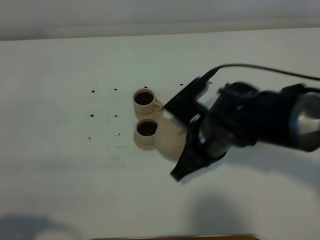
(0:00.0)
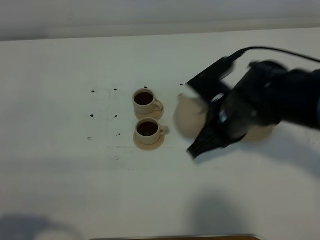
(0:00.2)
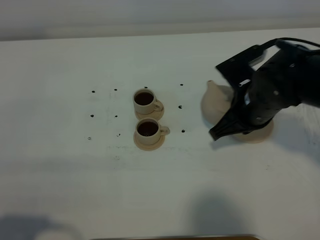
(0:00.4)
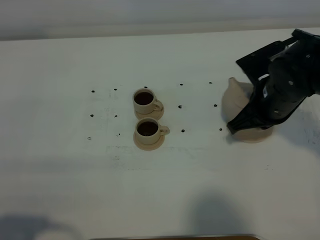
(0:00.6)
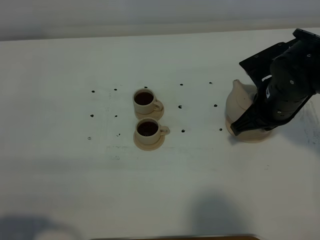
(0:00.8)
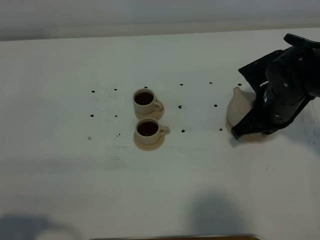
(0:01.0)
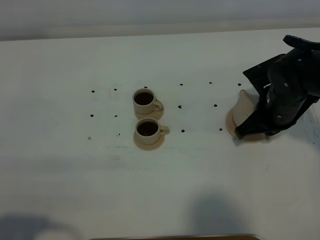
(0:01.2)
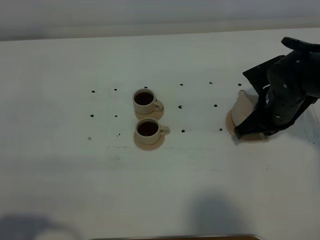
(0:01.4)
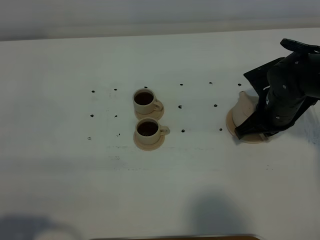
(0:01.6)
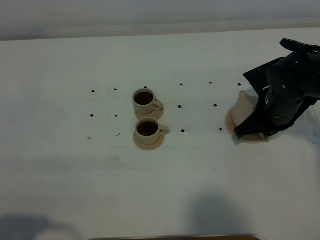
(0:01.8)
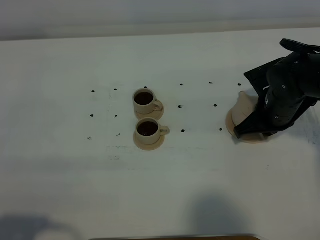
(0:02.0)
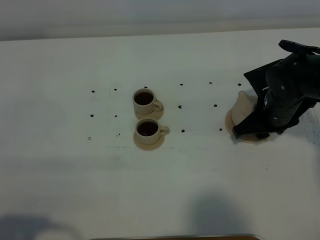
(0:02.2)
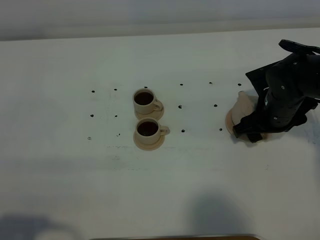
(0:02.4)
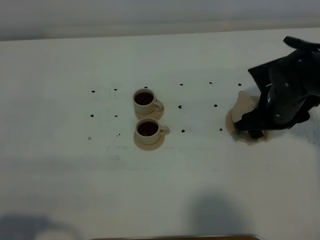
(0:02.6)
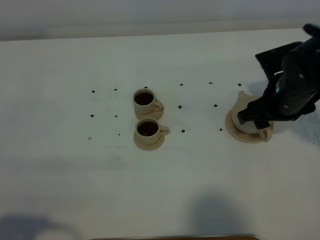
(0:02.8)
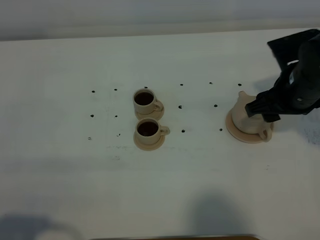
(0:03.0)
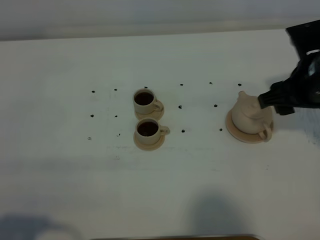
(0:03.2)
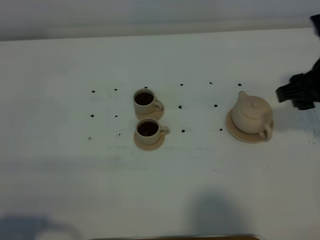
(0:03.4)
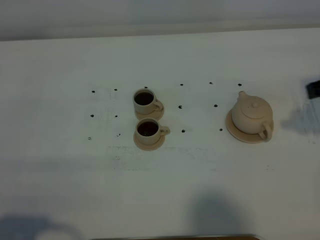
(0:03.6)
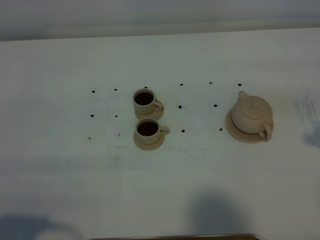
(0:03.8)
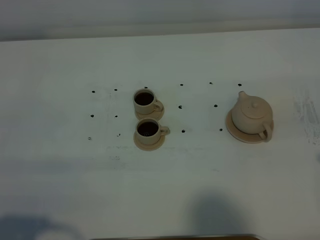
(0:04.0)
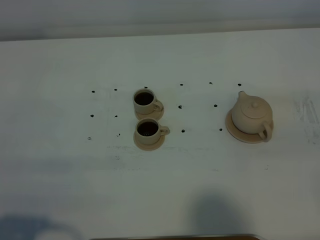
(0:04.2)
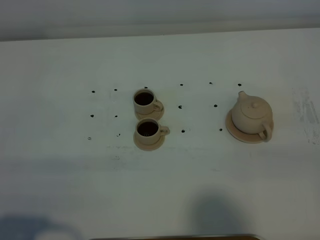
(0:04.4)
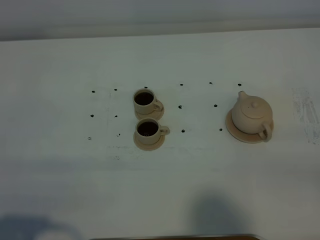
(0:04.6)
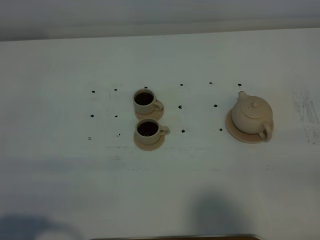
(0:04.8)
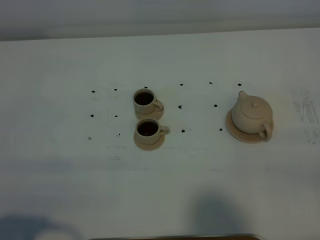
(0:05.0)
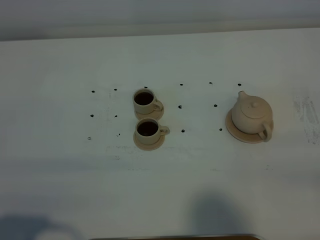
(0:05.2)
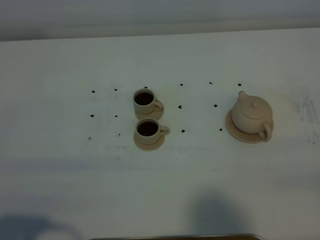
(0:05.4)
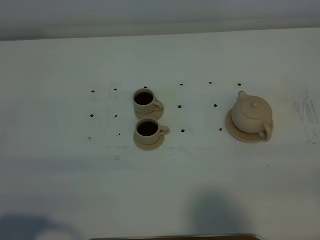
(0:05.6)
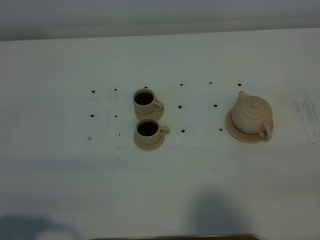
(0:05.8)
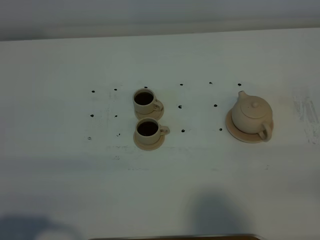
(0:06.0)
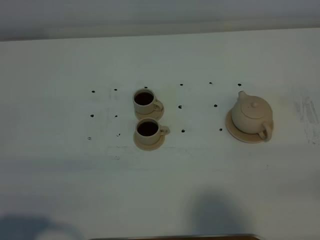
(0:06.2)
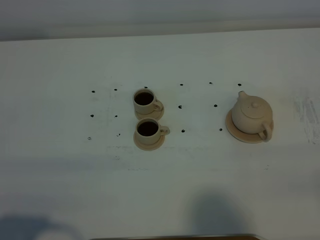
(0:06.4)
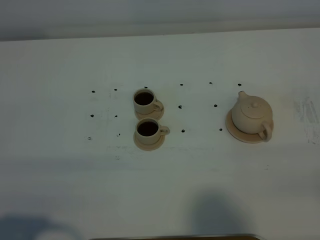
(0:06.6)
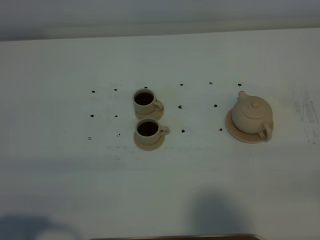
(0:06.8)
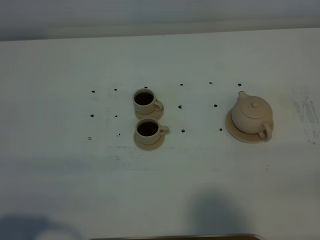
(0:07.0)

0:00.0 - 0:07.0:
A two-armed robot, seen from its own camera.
Task of the whole recording: grasp the brown teapot and pour the tea into the two brown teacups one by one, put the brown teapot back in its original place.
0:00.0 - 0:01.4: The right gripper travels to the right and forward by roughly 15 cm.
0:01.4 - 0:02.8: The right gripper opens up.
0:02.8 - 0:04.2: The right gripper goes some 30 cm backward, upward and to the right.
0:05.6 - 0:07.0: Neither gripper changes place.

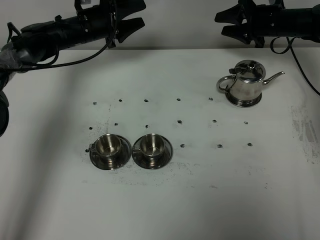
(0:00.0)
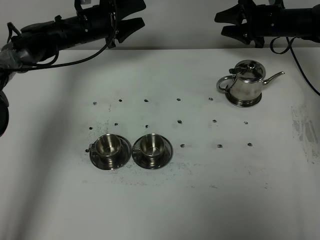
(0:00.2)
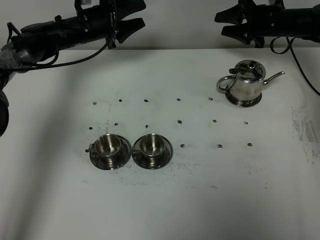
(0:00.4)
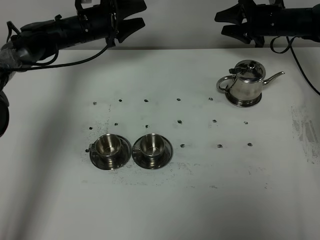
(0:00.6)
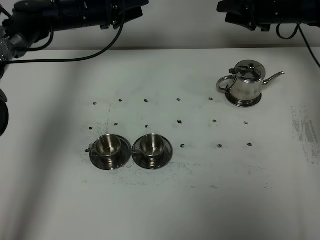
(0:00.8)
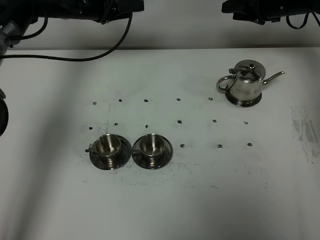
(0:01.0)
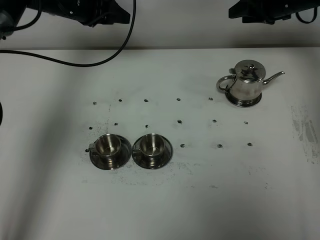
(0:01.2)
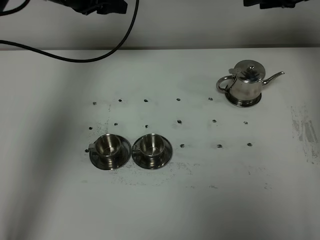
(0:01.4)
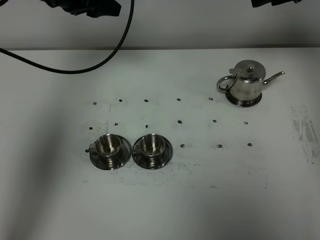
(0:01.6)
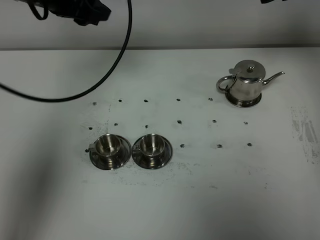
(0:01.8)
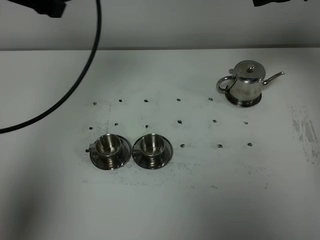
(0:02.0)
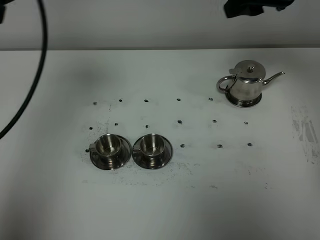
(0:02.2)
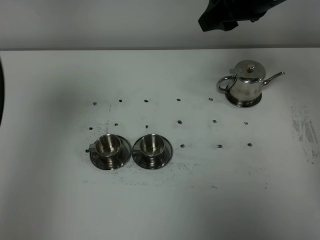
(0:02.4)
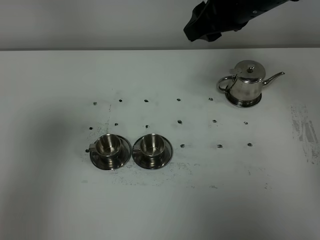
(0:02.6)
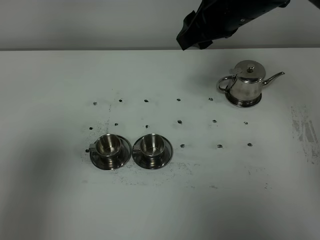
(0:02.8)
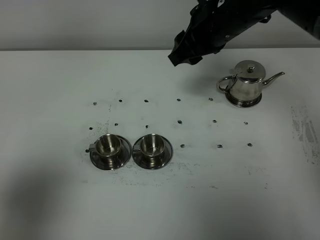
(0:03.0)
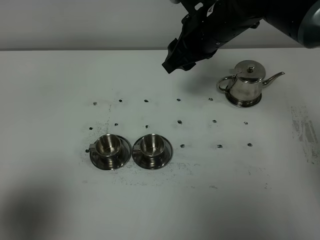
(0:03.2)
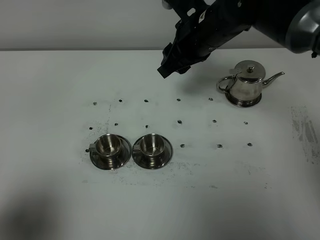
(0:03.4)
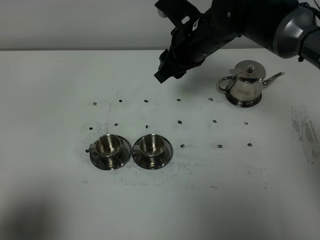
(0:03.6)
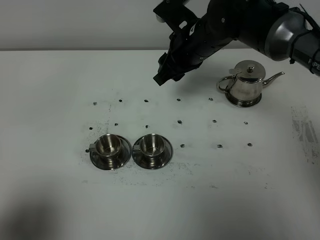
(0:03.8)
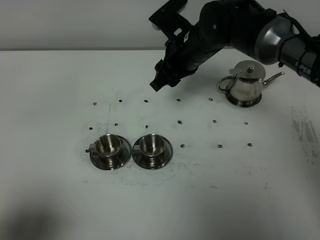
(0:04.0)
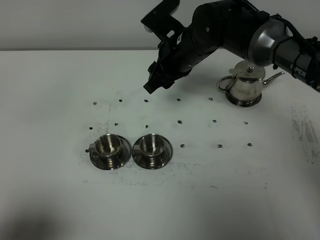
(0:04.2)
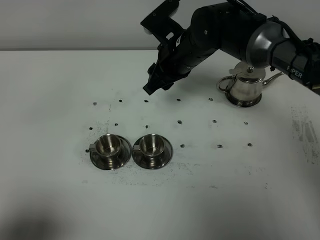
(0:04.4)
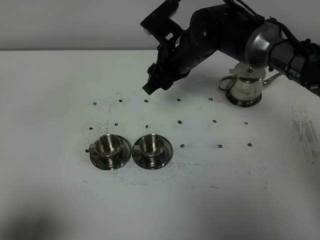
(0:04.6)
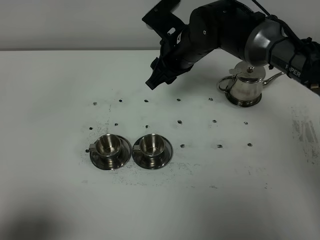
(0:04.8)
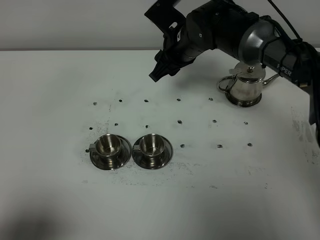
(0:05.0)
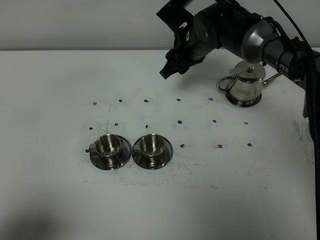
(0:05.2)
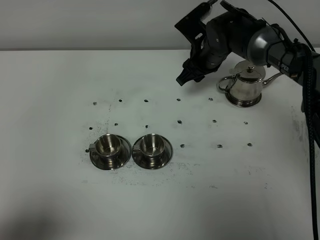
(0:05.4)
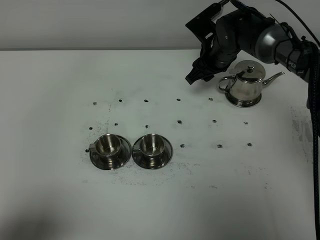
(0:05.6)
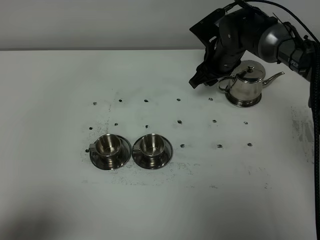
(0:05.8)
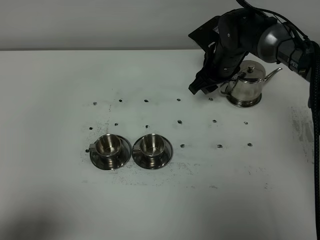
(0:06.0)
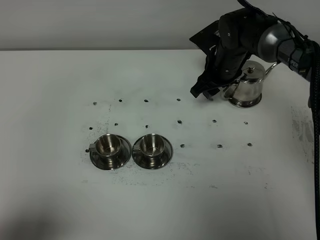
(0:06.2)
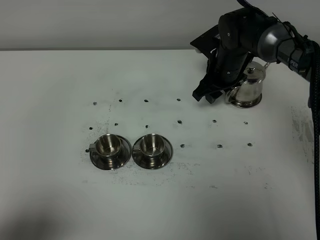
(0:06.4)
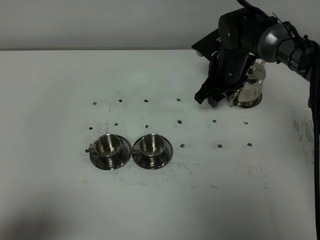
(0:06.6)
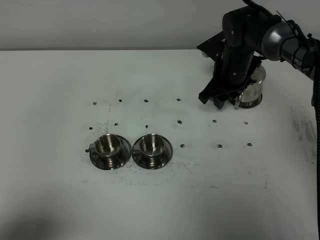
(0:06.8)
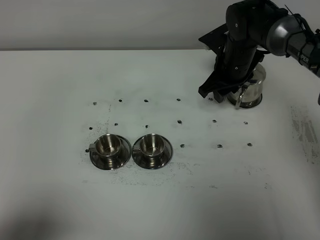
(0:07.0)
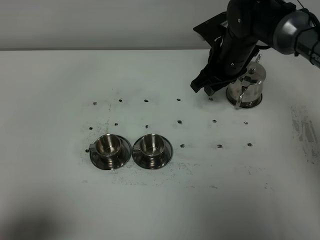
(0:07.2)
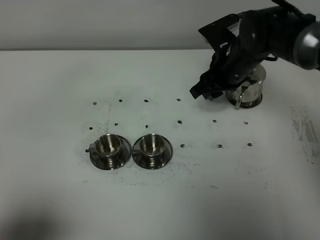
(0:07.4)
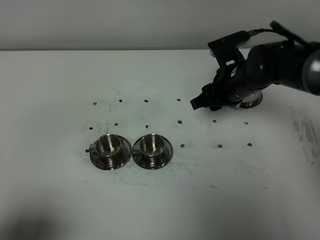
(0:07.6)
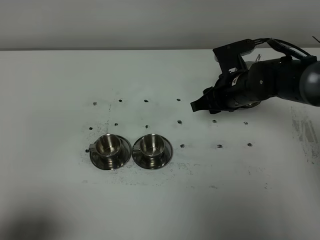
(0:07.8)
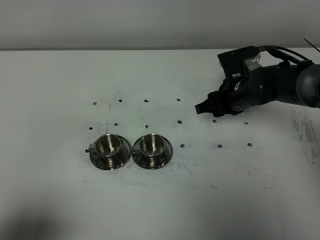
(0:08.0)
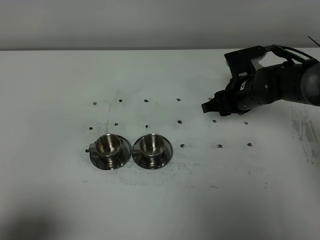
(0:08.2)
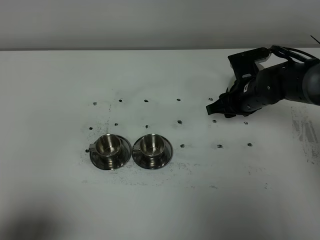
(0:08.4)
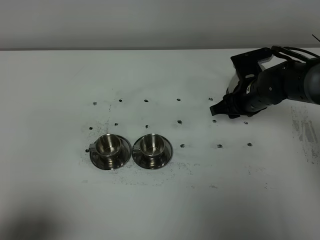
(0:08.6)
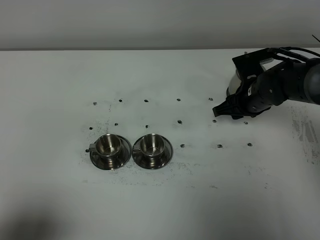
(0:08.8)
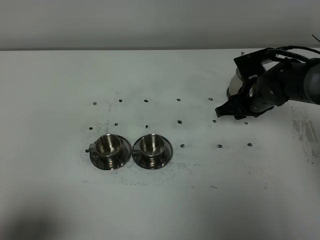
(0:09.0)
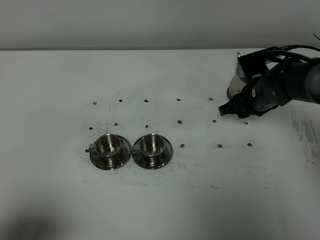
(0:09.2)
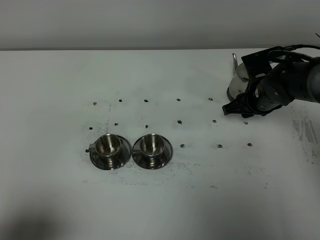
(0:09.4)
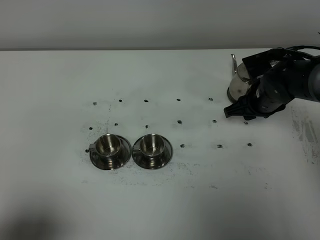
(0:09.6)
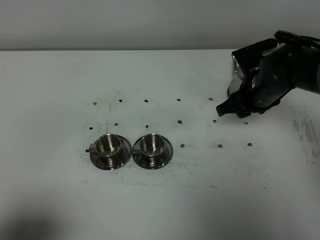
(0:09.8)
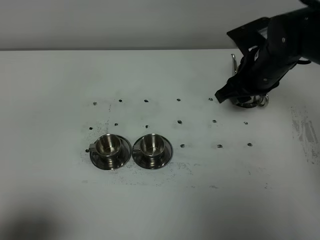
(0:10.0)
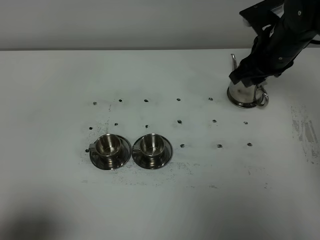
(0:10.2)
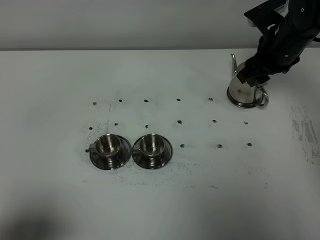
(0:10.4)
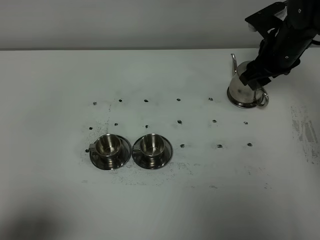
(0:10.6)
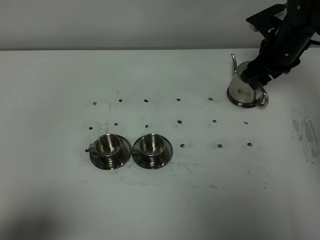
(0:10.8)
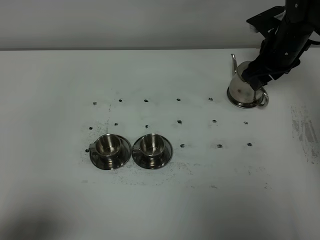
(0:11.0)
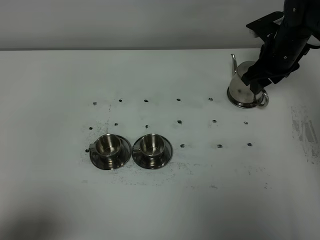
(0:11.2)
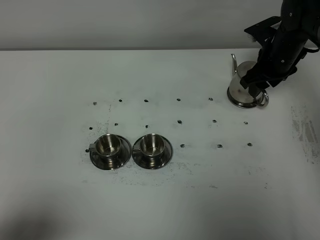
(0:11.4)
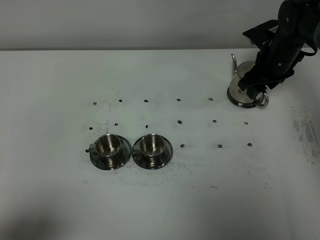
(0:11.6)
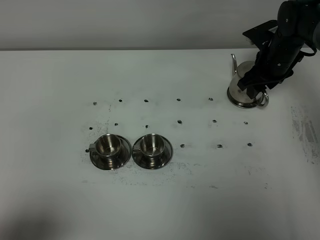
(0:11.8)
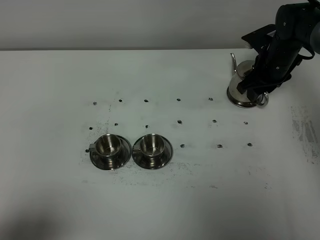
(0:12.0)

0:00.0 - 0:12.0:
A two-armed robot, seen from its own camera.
Task of the whole recording: grasp the stainless steel teapot and pour the tea into the two stainless steel teacups one by one, put the stainless steel teapot back in its original place.
0:00.0 - 0:01.6: The two grippers go approximately 20 cm upward and backward.
0:01.6 - 0:03.0: The left gripper moves backward, approximately 40 cm, while the right gripper moves to the left and backward, roughly 20 cm.
0:03.0 - 0:04.4: The left gripper goes roughly 10 cm downward and backward; the right gripper shifts roughly 10 cm downward.
0:04.4 - 0:06.0: The right gripper goes approximately 10 cm to the right, downward and forward.
0:06.0 - 0:07.6: The right gripper goes approximately 10 cm backward.
0:07.6 - 0:09.0: The right gripper shifts by some 5 cm.
0:09.0 - 0:10.4: The right gripper shifts approximately 10 cm upward.
0:10.4 - 0:12.0: The right gripper moves downward and forward, approximately 10 cm.

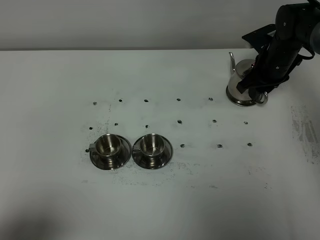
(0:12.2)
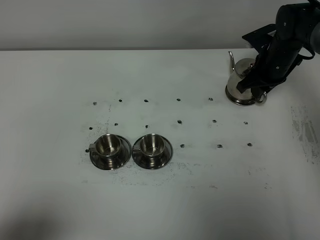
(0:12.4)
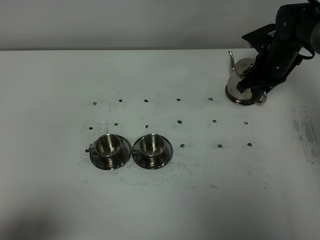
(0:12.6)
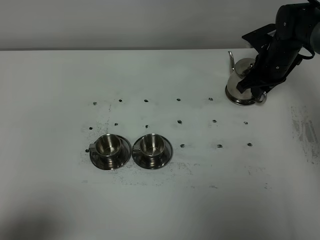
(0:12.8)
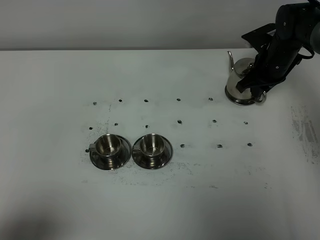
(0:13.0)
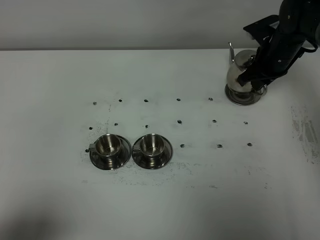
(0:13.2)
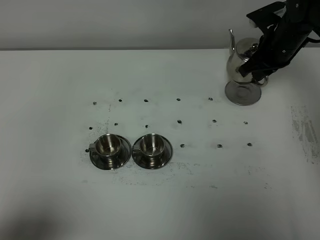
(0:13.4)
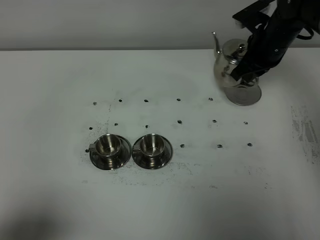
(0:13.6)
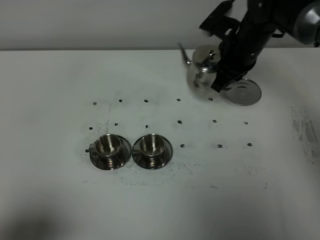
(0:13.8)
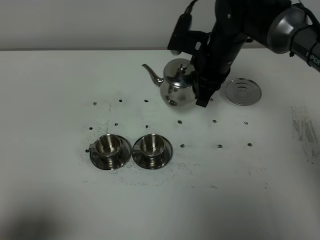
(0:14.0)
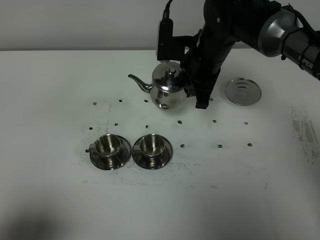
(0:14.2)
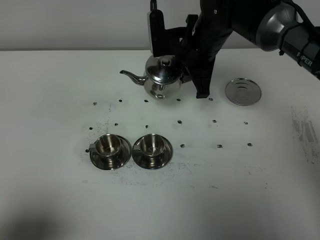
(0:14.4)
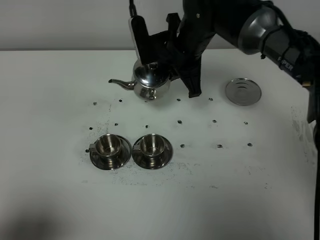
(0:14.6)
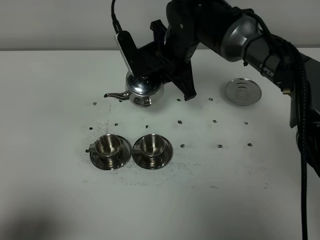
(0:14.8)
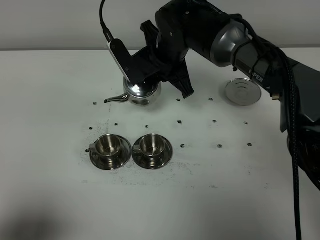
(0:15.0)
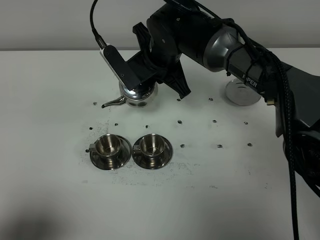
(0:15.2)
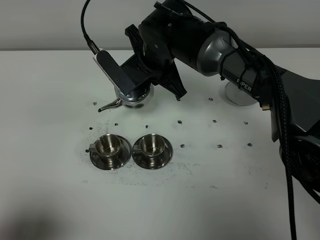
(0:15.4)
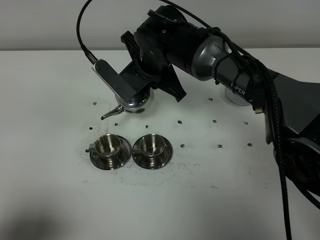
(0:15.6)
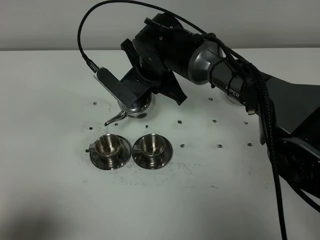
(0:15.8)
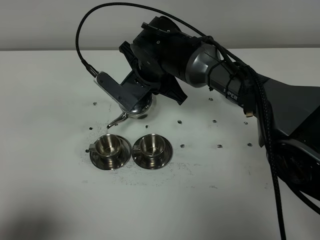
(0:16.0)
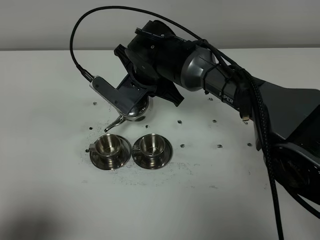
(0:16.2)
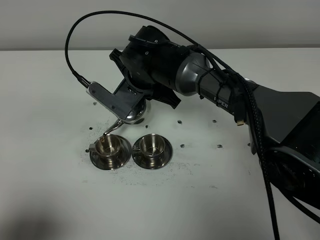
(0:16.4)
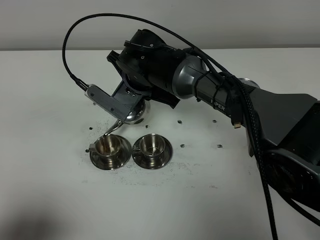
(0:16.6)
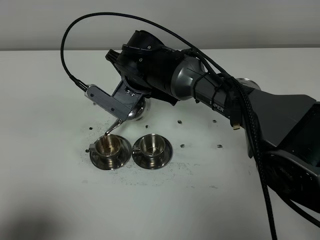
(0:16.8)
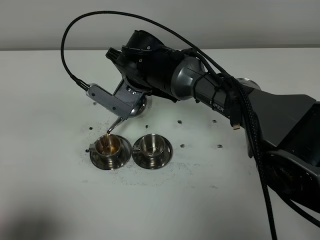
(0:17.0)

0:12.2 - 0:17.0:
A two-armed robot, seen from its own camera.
Task of the whole recording: grasp the stainless steel teapot and pour the tea into the two stainless steel teacups one by one, put the stainless steel teapot back in its original place.
0:12.2 - 0:13.8: The right gripper is displaced to the left and upward by some 10 cm, and closes.
0:13.8 - 0:15.4: The right gripper moves to the left, approximately 15 cm.
